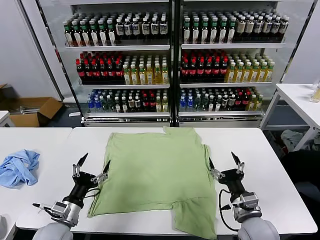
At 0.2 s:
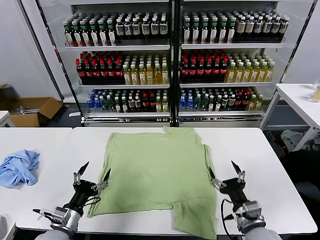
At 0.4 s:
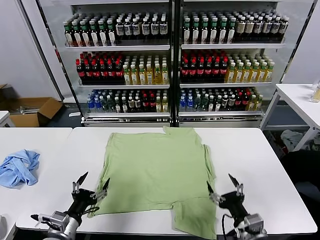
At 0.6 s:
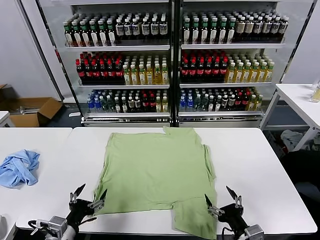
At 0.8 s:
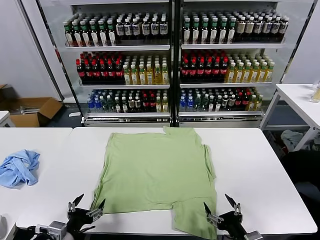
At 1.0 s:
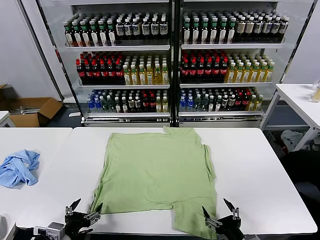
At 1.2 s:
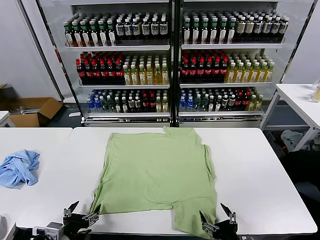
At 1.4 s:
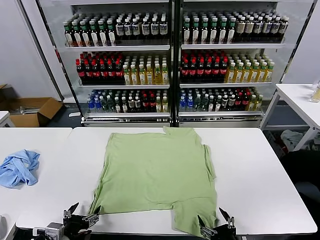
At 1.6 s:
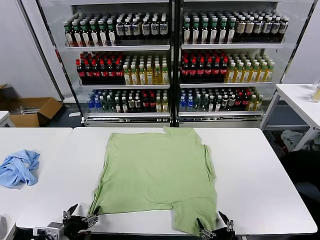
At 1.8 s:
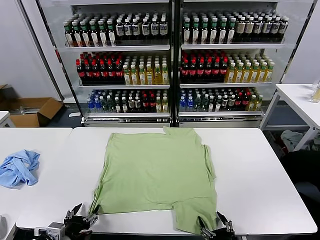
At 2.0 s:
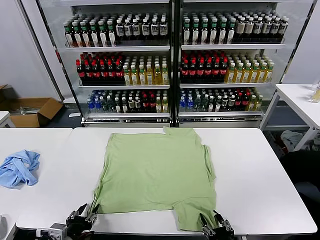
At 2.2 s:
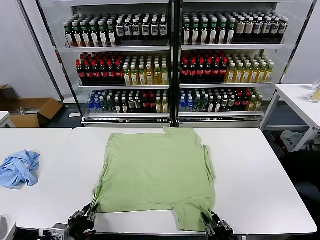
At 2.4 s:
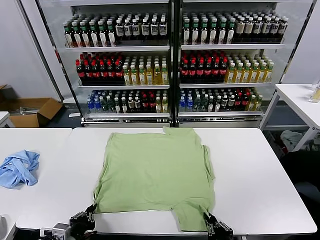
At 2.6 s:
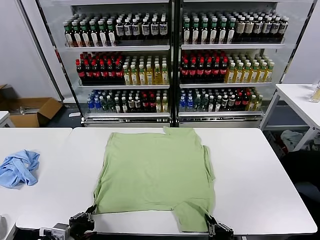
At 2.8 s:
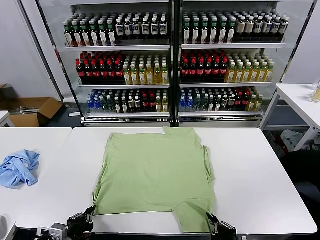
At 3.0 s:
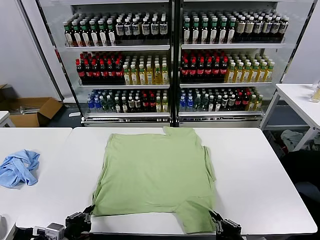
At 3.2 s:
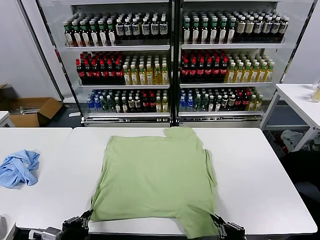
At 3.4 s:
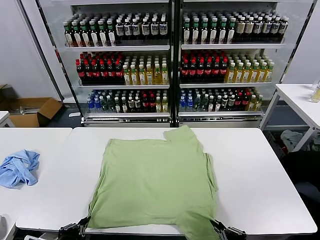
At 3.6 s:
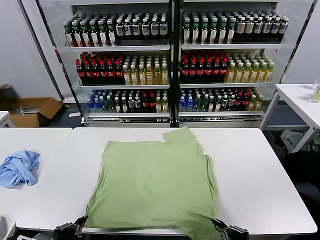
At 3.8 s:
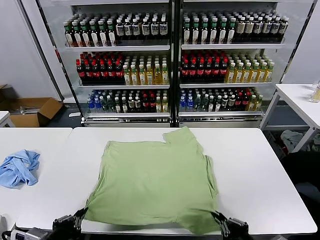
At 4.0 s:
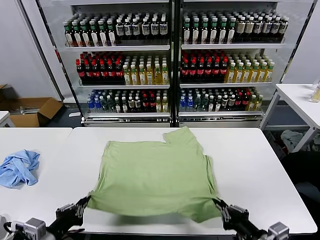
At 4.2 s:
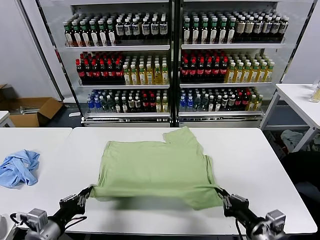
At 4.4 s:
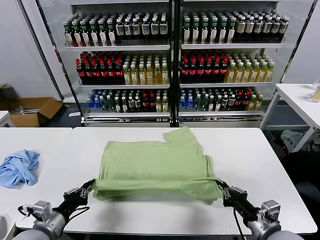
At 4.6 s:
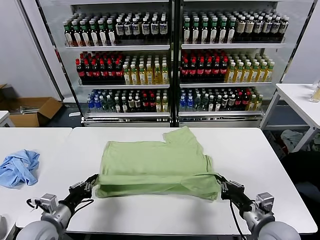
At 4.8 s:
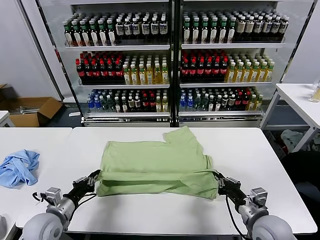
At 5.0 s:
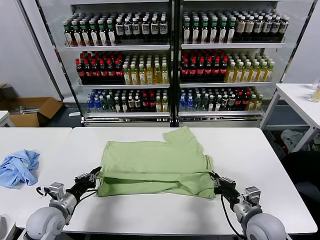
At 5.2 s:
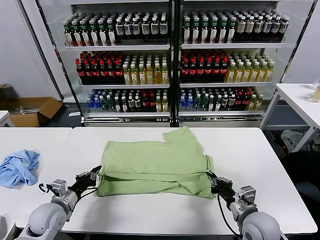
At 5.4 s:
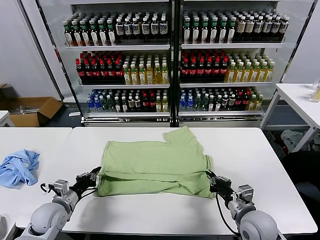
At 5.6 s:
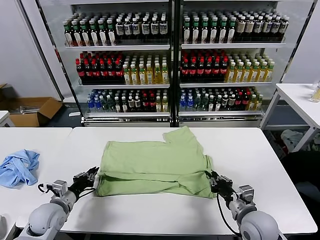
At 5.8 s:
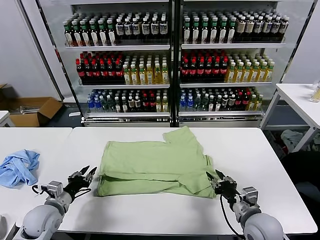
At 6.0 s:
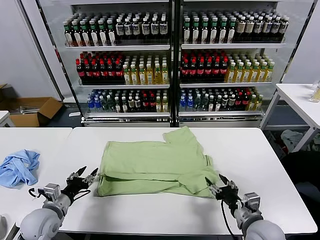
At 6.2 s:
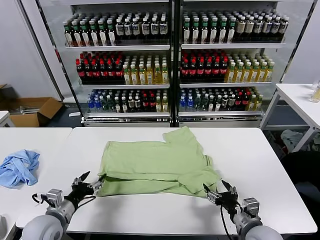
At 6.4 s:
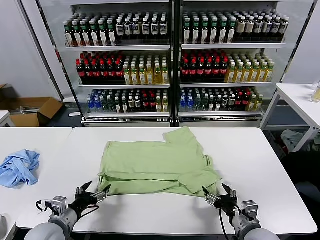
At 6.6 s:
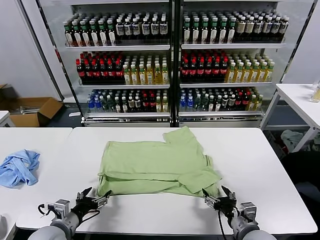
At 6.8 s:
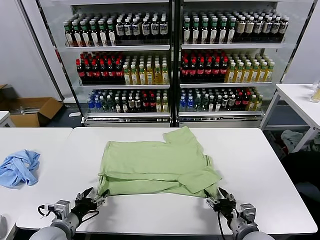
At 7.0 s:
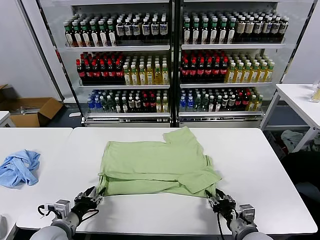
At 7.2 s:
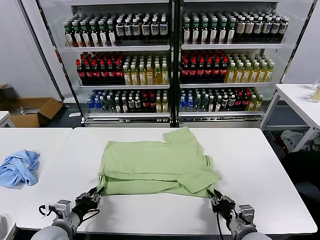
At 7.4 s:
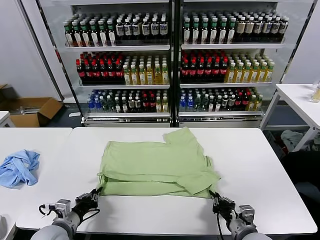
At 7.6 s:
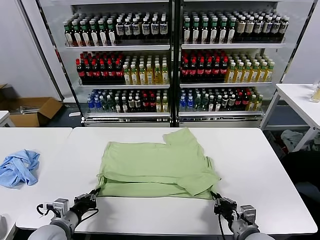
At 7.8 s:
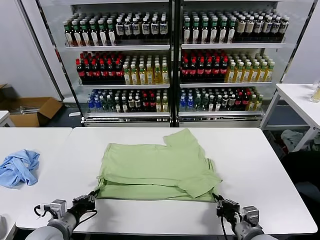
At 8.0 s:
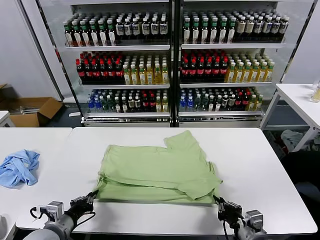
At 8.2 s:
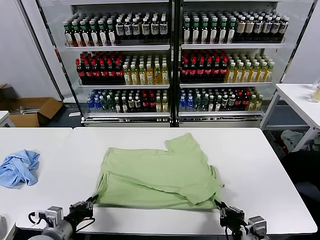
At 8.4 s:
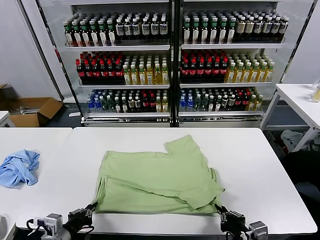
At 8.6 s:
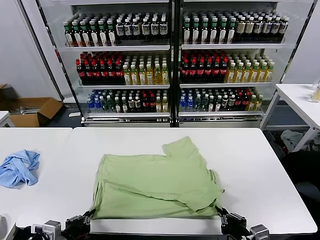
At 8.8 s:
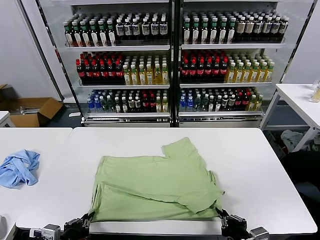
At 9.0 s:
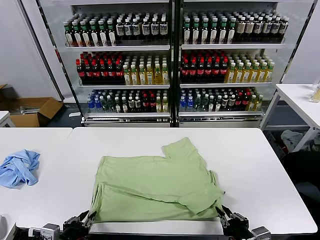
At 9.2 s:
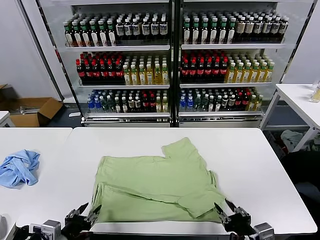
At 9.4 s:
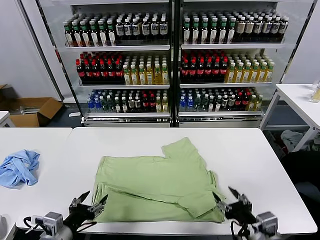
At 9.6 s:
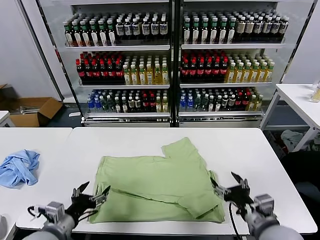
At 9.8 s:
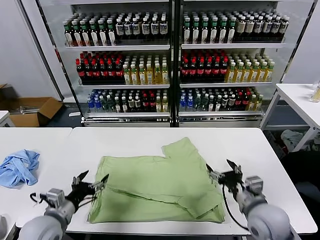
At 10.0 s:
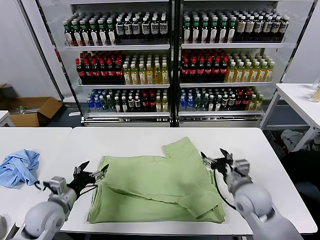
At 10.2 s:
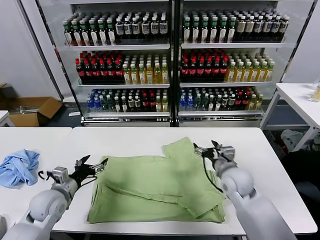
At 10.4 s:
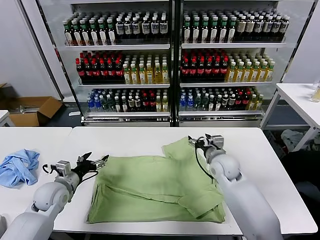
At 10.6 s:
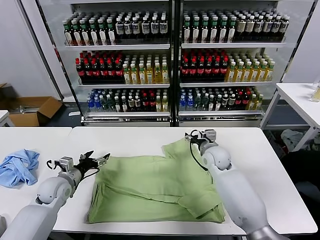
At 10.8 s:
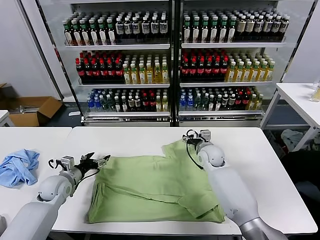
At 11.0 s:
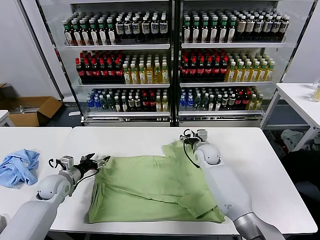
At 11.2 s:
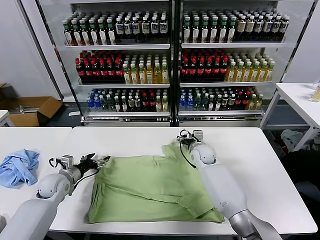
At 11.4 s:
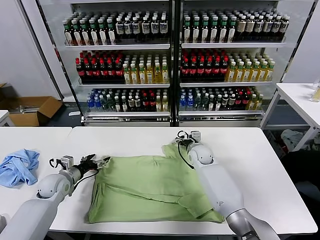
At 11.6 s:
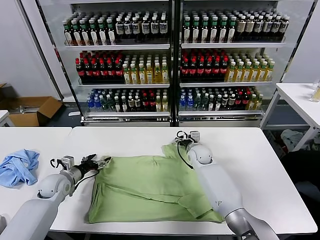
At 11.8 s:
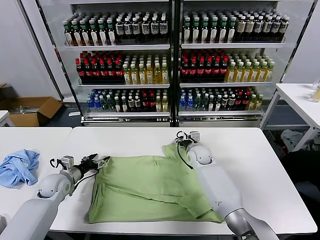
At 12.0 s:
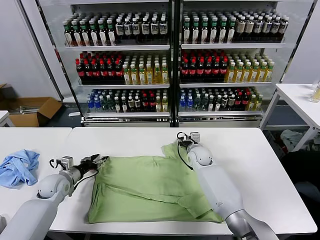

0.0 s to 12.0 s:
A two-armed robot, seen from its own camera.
Task of the whole recording: fold and organize the clothes.
Step, 0.0 to 3.0 s: use both grippers simultaneously to clamp the lower edge of the clothing fabric.
Step, 3.2 to 5.8 s: use both grippers to drag the lower edge of the fabric forward and fold it over the upper edge.
Step, 6.0 to 9.2 s: Drag the clothes downward with both gripper.
1.6 to 3.0 s: The right gripper moves upward, approximately 5 cm, and closes its fingers. Meanwhile the left gripper closes its fingers.
3.0 to 4.4 s: The left gripper travels forward by roughly 5 cm; the right gripper travels forward by some 10 cm.
4.4 to 6.0 s: The left gripper shifts roughly 5 cm forward, and opens up. Meanwhile the right gripper opens.
6.0 to 7.6 s: The right gripper closes; the left gripper changes place by approximately 5 cm, and closes.
7.6 to 9.0 s: The two grippers go roughly 10 cm backward.
9.0 to 10.4 s: The right gripper is displaced forward by roughly 35 cm, and opens its fingers; the left gripper goes about 20 cm forward, and opens its fingers.
10.4 to 12.0 s: The left gripper is displaced forward by about 5 cm. Meanwhile the right gripper heads forward, downward and to the left, covering about 10 cm, and closes.

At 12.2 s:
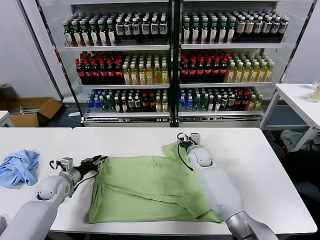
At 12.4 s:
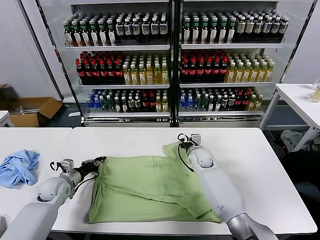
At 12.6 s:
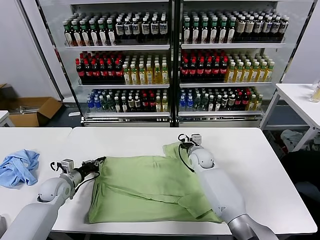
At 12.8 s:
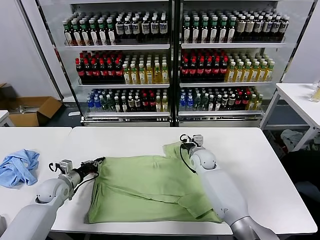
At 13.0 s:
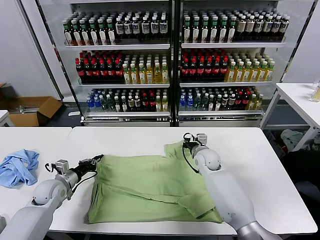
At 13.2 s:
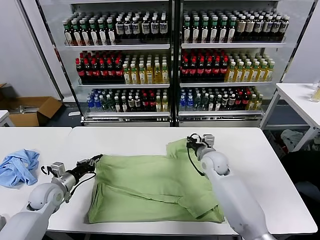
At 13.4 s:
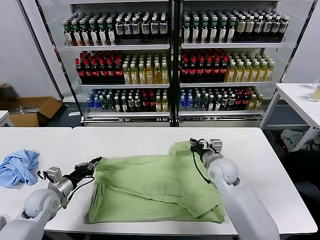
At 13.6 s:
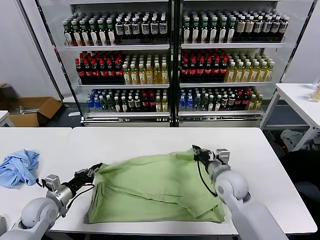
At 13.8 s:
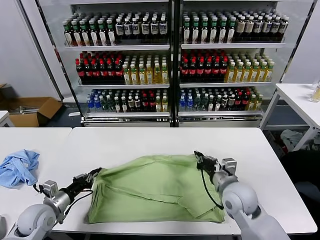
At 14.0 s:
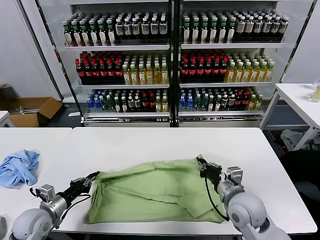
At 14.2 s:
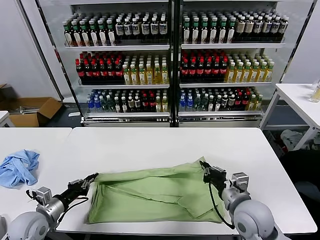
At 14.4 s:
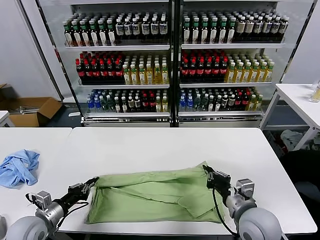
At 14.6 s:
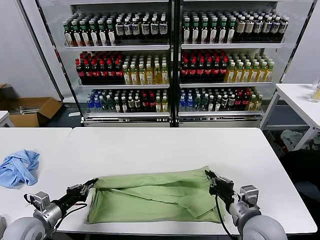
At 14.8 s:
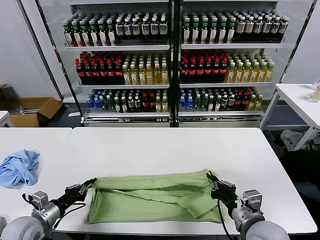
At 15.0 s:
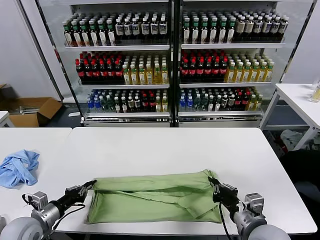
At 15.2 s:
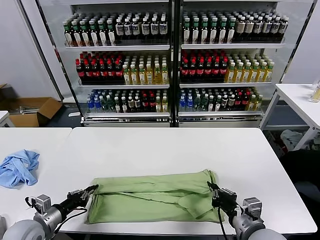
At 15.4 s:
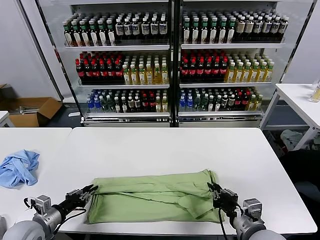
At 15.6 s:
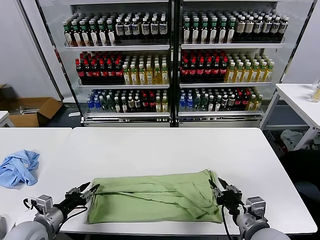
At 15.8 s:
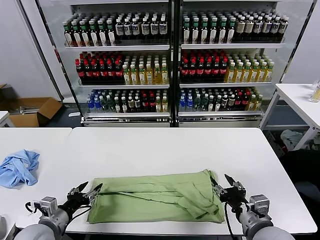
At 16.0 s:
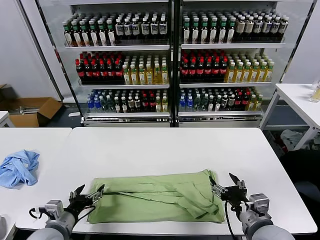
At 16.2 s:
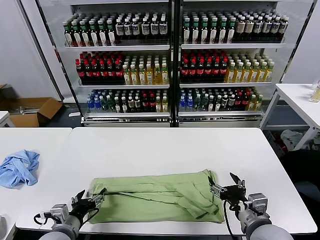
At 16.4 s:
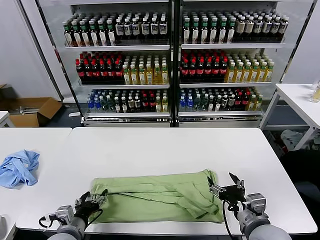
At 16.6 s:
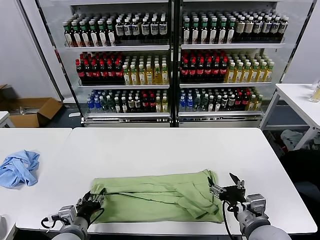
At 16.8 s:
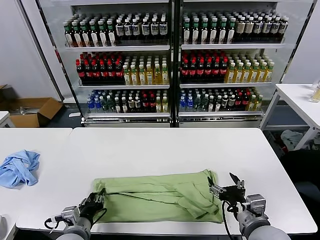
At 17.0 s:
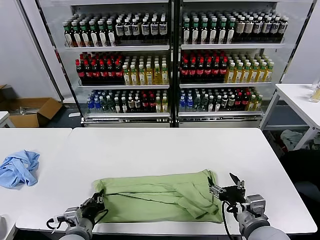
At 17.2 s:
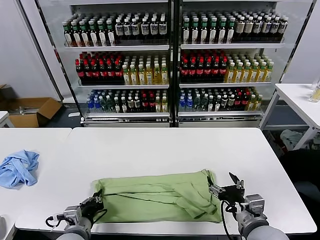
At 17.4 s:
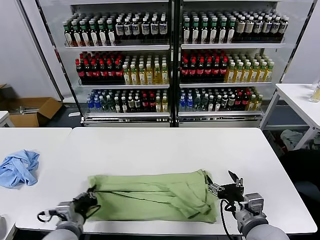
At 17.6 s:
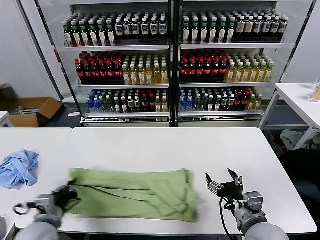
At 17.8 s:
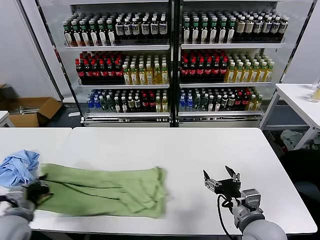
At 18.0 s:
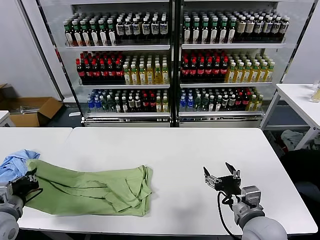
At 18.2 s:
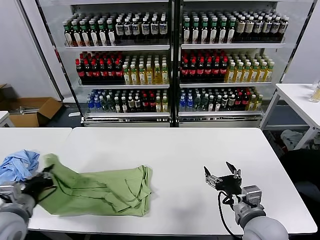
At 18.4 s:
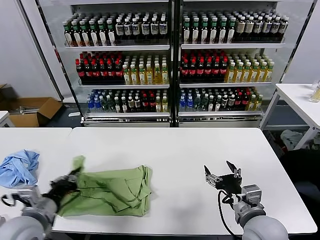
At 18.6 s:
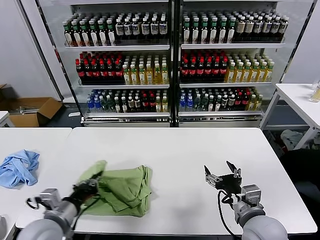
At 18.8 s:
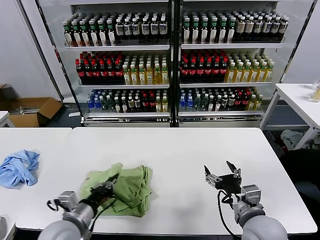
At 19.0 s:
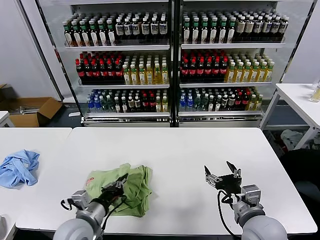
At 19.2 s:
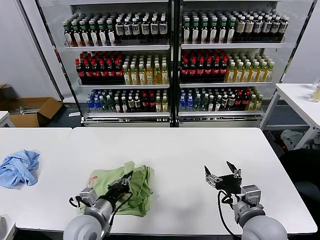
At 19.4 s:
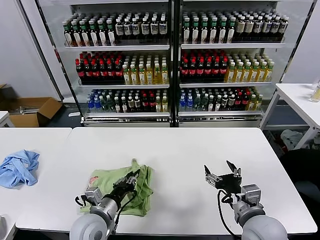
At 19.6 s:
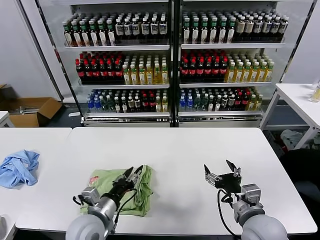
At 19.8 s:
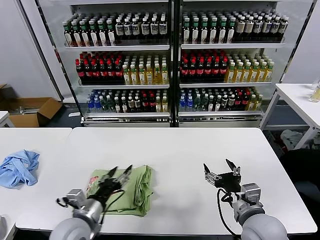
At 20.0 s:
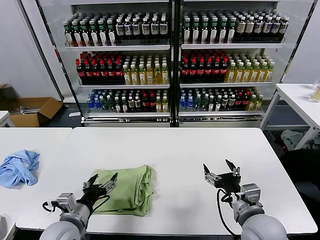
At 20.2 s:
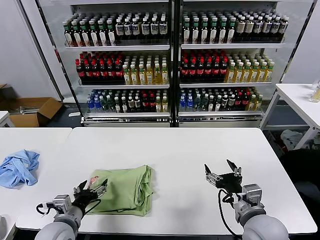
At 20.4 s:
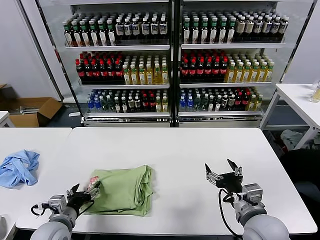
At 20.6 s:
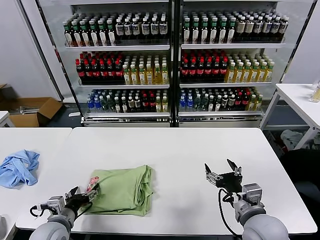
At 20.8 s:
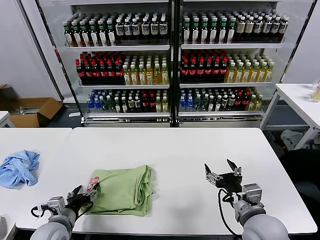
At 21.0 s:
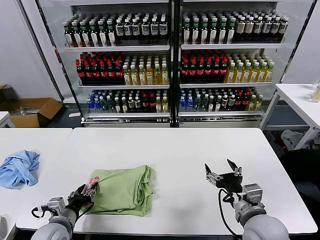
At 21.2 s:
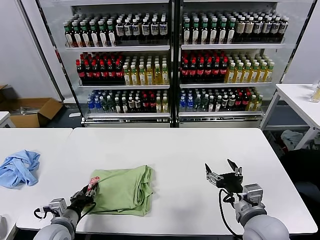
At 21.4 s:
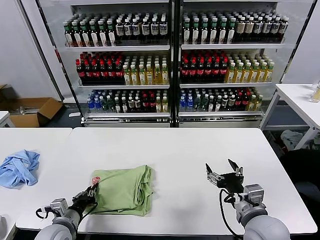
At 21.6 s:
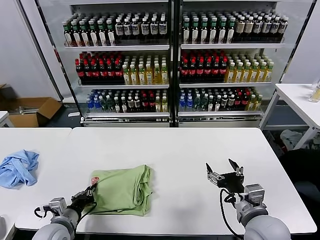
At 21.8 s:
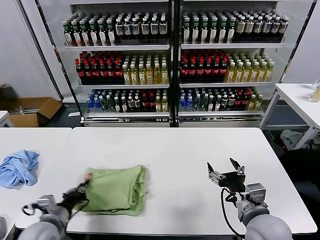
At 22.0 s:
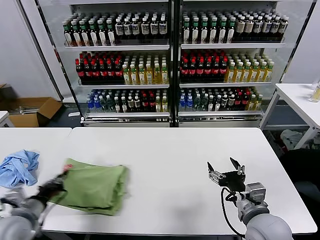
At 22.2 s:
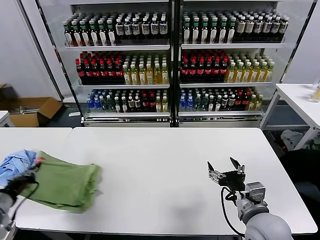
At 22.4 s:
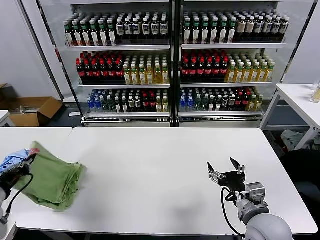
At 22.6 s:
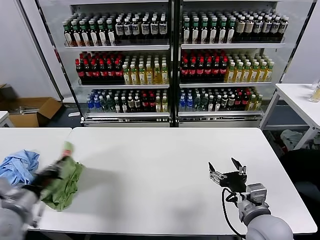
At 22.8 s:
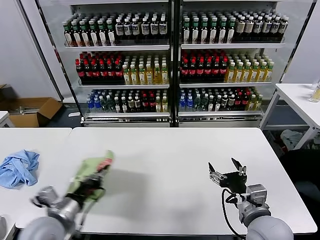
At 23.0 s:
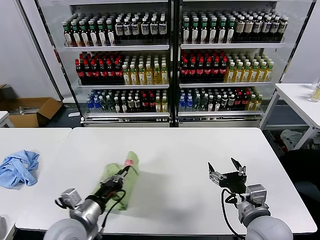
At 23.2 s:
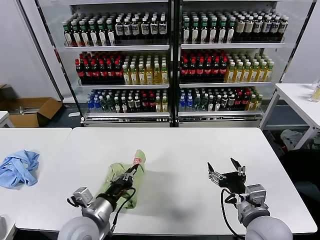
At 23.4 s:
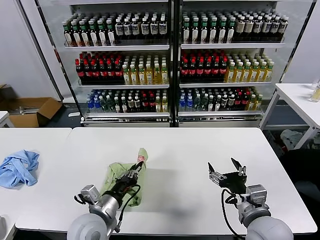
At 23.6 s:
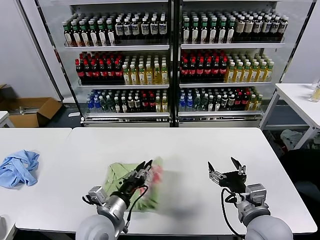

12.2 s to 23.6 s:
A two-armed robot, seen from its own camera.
Task of the whole recording: fold and organize the clothes.
Step, 13.0 to 15.6 s: use both grippers to drag the upper edge of the fabric backward and fold it over the lower edge.
Step, 15.8 to 17.0 s: use the left gripper to clamp the left edge of the fabric.
Step, 17.2 to 19.6 s: use the left gripper to drag the left edge of the fabric to the left and folds it over the right edge.
12.2 to 13.6 s: The right gripper heads backward and upward, covering approximately 20 cm, and closes, while the left gripper travels backward by about 10 cm, and closes up.
13.6 to 15.0 s: The right gripper travels backward by roughly 15 cm. The left gripper moves backward, about 5 cm.
15.0 to 16.4 s: The left gripper is displaced to the right by about 10 cm, and opens its fingers. Meanwhile the right gripper opens up.
16.4 to 17.8 s: The left gripper goes roughly 10 cm to the left and upward, and closes its fingers.
17.8 to 19.4 s: The left gripper heads to the right, covering approximately 20 cm.
19.4 to 20.8 s: The left gripper travels to the left by approximately 10 cm, and opens.
20.8 to 22.2 s: The left gripper shifts about 15 cm to the left and upward, and closes up.
22.2 to 23.6 s: The left gripper shifts approximately 25 cm to the right.
